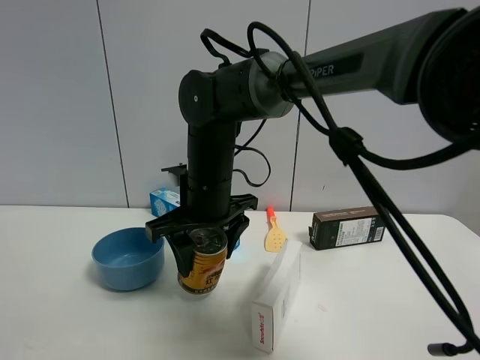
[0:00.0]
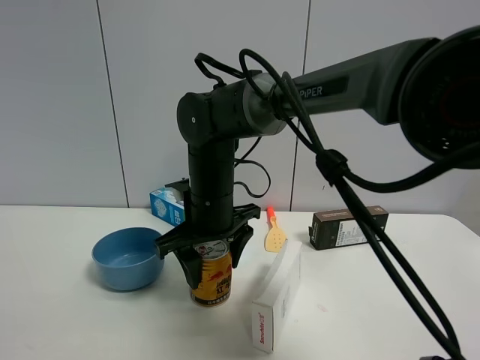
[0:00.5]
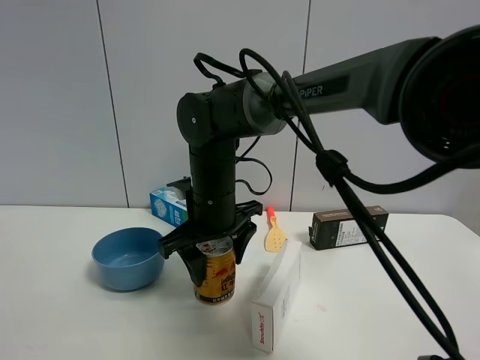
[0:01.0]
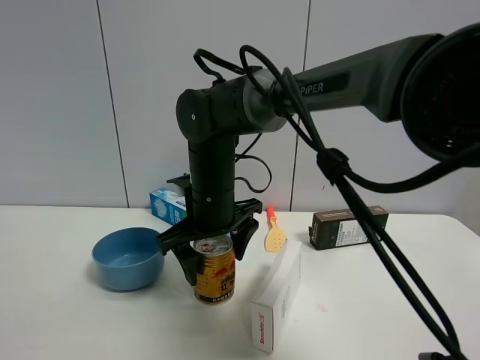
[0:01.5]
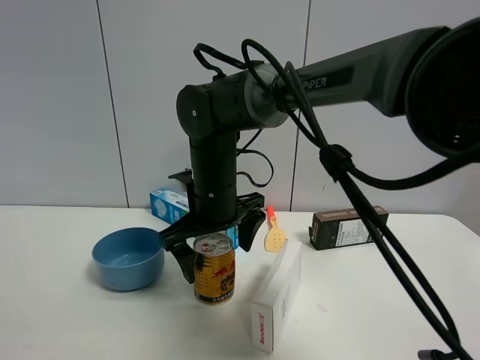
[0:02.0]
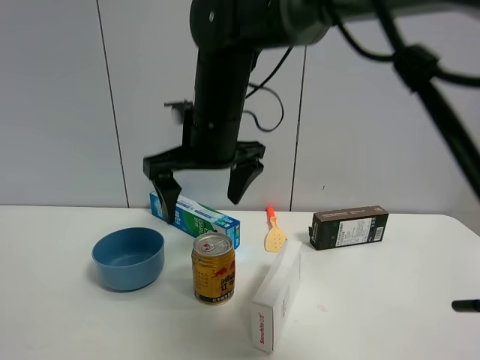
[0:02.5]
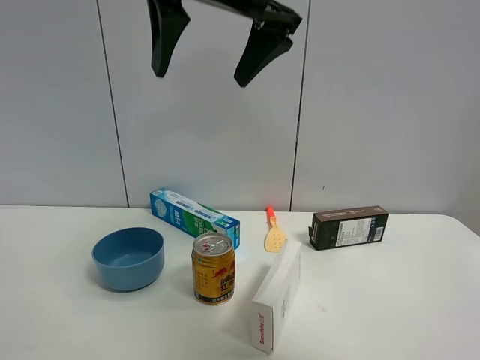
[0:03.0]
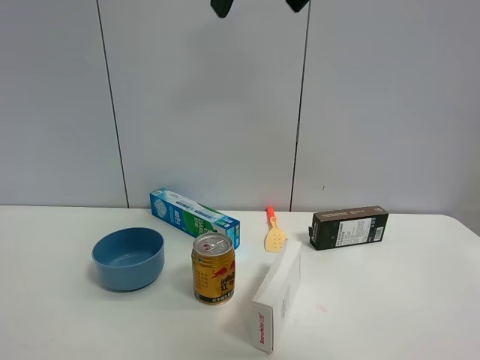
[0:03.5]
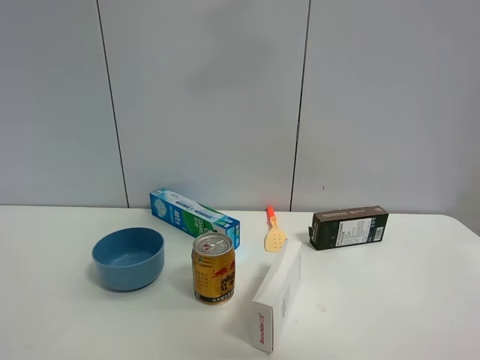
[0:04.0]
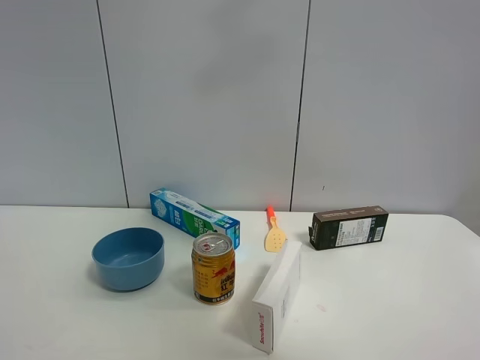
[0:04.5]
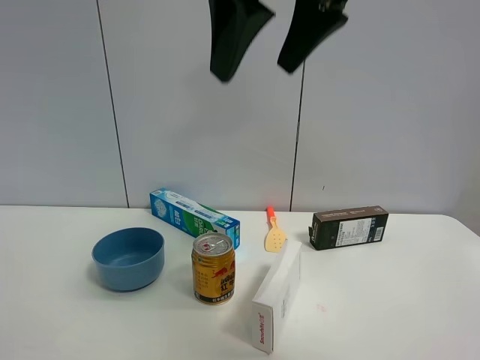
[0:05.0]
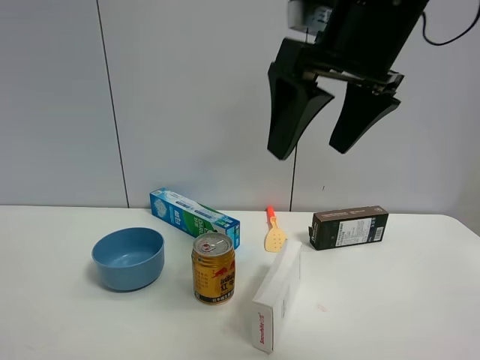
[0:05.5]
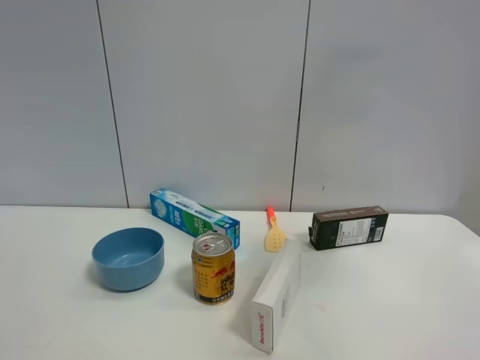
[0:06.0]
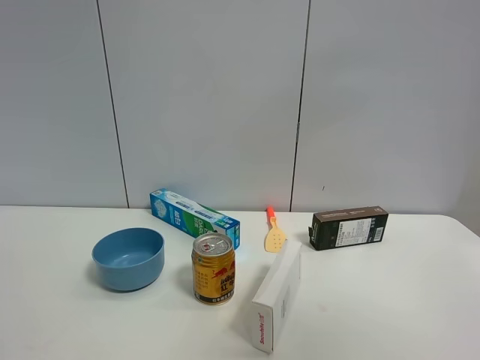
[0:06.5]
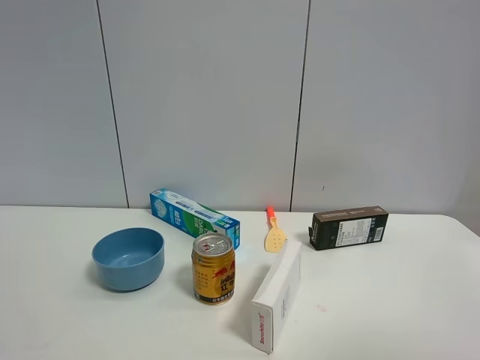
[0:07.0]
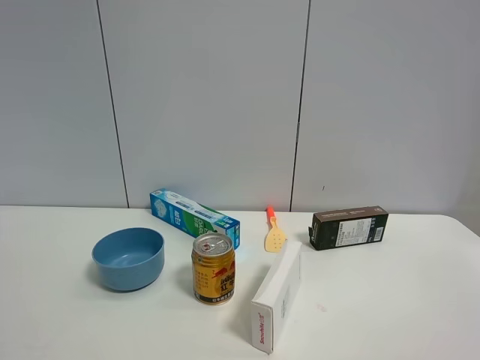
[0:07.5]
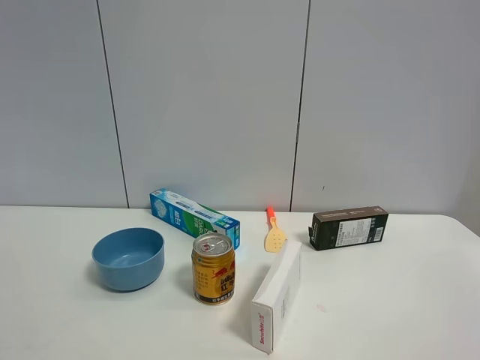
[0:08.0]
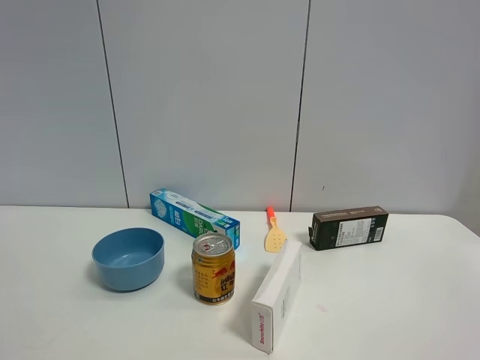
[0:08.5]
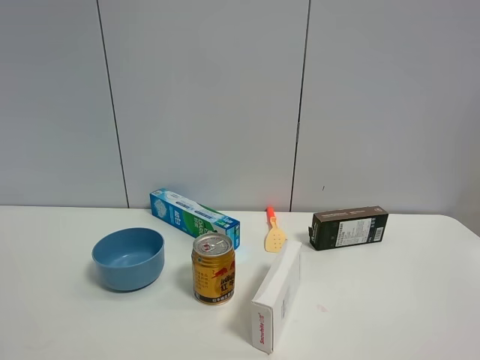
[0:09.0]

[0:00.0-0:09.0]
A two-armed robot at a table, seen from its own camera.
Task of the whole recording: the gripper move the object.
0:00.0 to 0:02.0: The right gripper opens its fingers.
0:02.0 to 0:04.5: The right gripper shifts about 35 cm upward.
0:04.5 to 0:07.0: The right gripper travels backward, to the right and downward by approximately 35 cm.

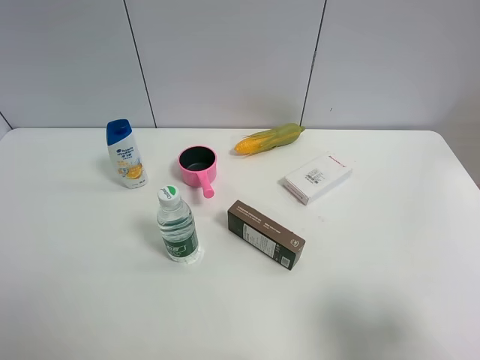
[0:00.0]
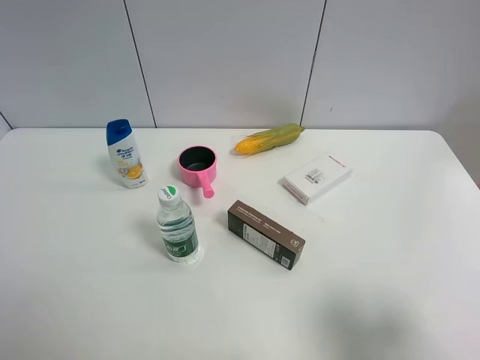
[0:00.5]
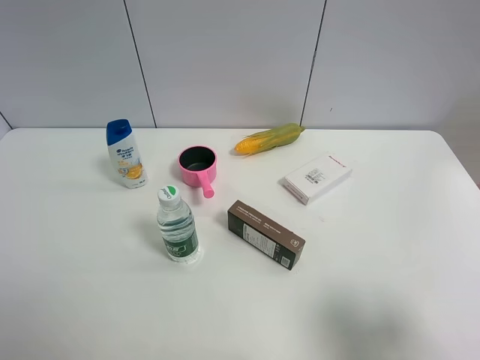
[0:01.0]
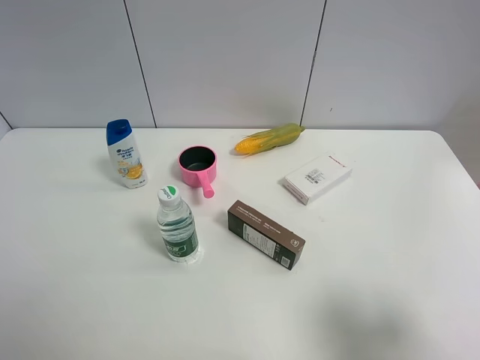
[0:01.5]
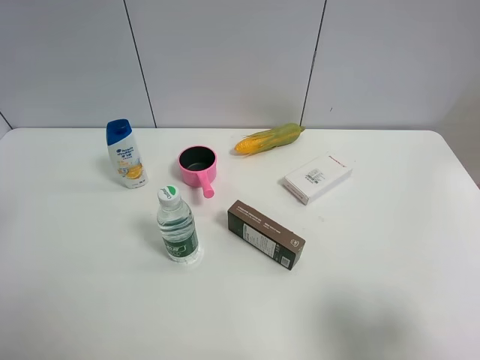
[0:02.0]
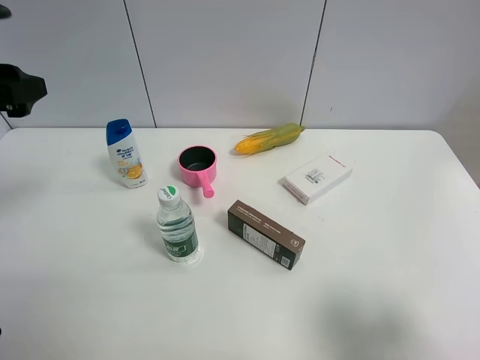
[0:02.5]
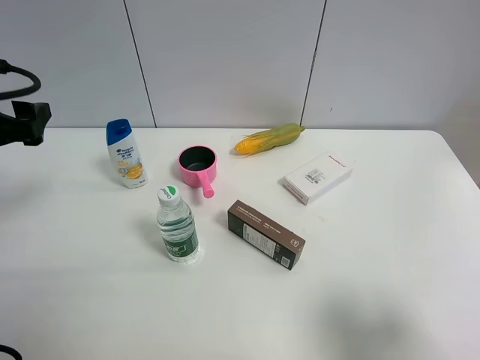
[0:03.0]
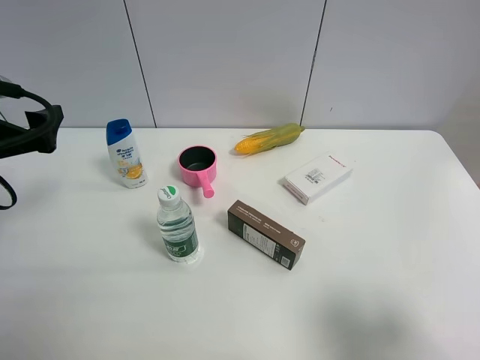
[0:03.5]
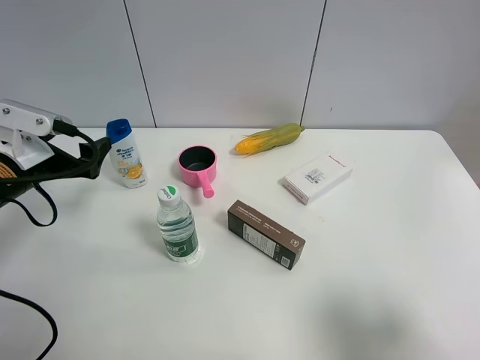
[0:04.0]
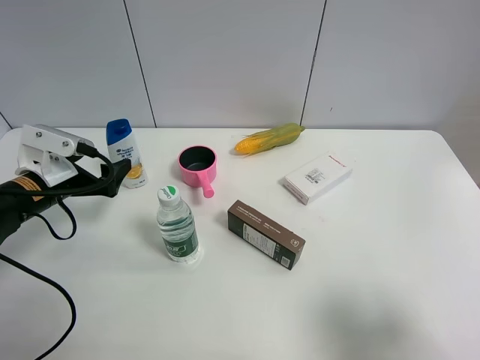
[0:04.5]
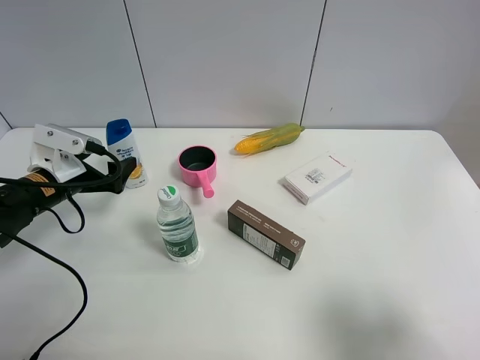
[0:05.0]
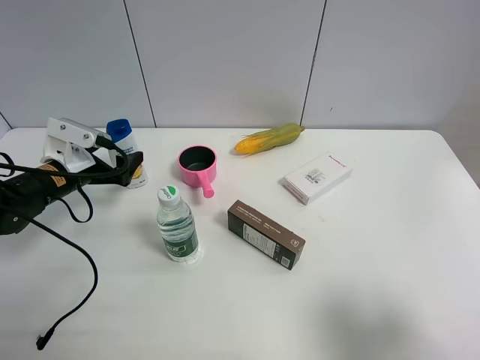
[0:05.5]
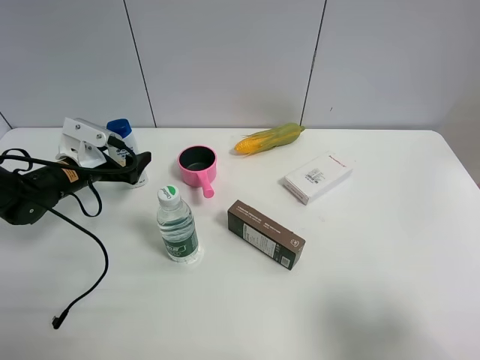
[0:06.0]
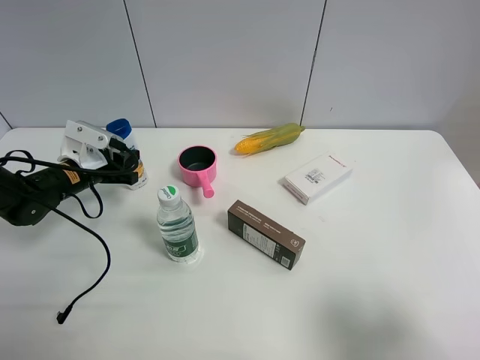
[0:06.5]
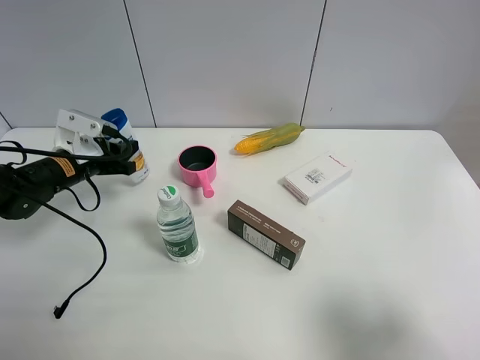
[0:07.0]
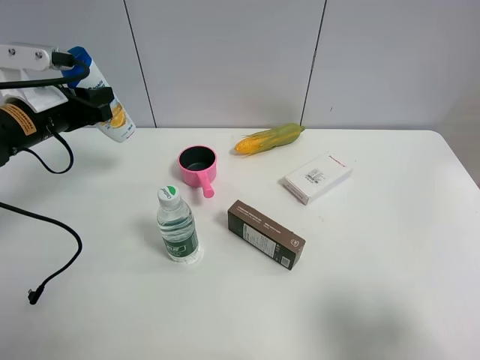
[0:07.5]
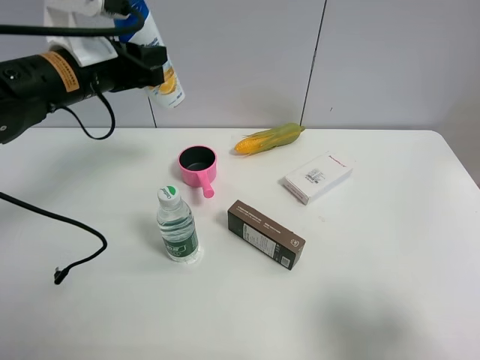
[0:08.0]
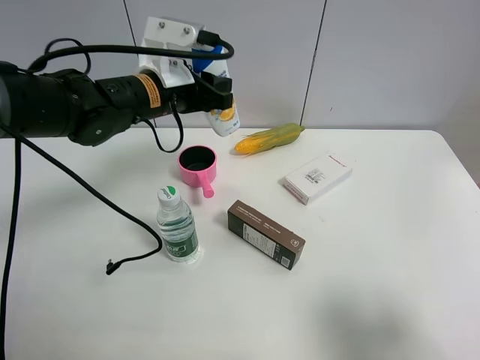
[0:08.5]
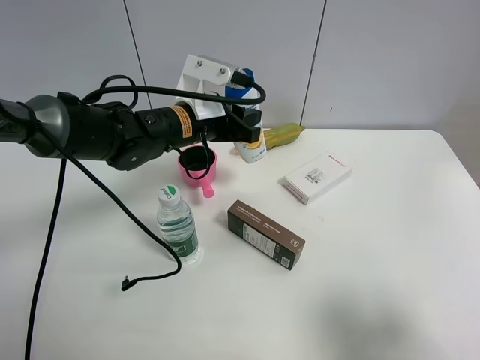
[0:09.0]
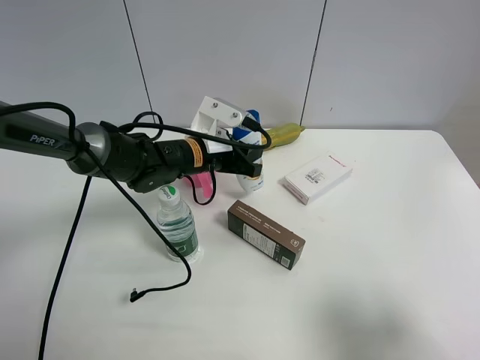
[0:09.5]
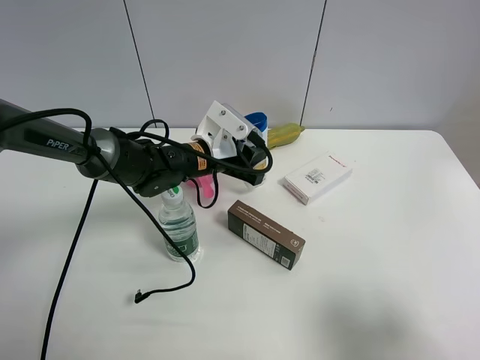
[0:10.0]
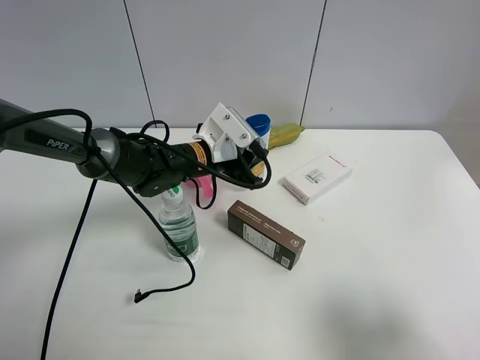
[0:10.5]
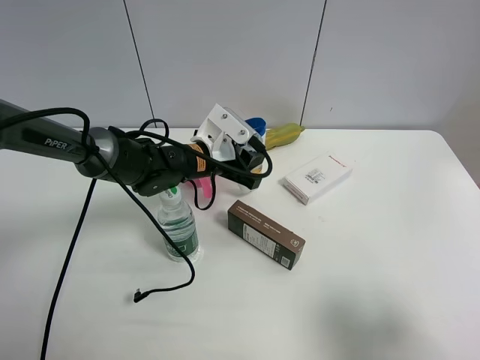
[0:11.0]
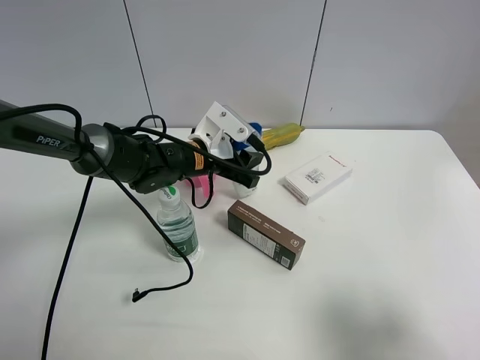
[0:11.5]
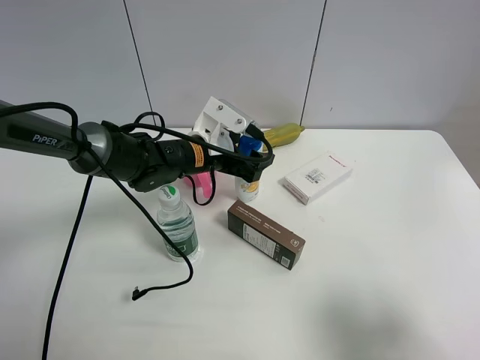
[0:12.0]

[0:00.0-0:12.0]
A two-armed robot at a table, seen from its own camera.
Task of the whole recording: the gripper move the object.
Step, 0:00.0 to 0:06.5: Grasp the shampoo with the left gripper.
Step, 0:07.0 to 0:12.0: Place the shampoo on the table with the left gripper.
0:02.0 to 0:04.0: The left gripper shifts about 25 cm downward and forward.
0:04.0 to 0:06.0: The left gripper is displaced forward and downward by some 10 cm.
0:06.0 to 0:08.0: The left gripper heads upward and to the right, covering approximately 20 cm, and closes its fingers.
0:08.0 to 0:10.0: The left gripper goes some 20 cm downward and to the right.
0:10.0 to 0:12.0: The left gripper opens up.

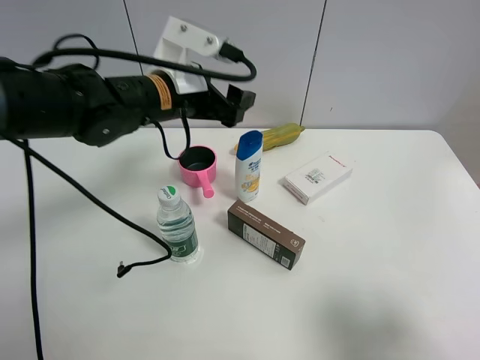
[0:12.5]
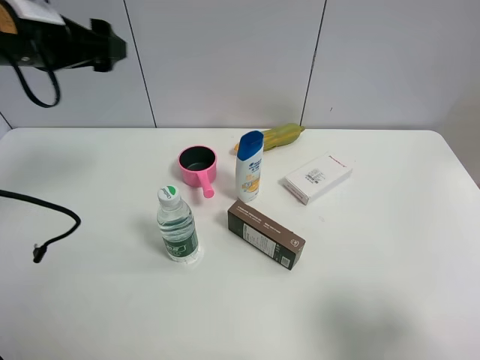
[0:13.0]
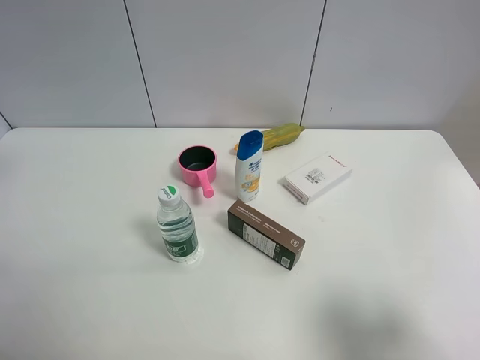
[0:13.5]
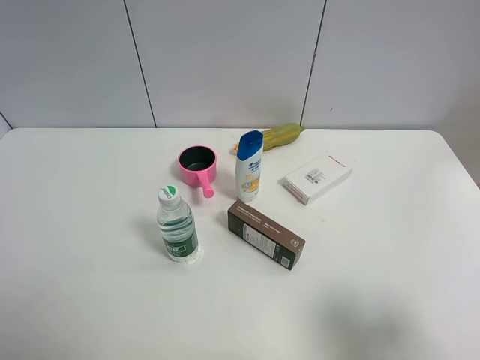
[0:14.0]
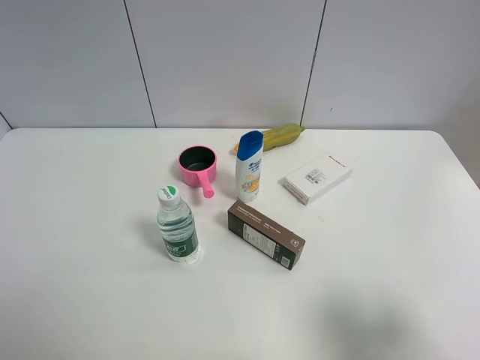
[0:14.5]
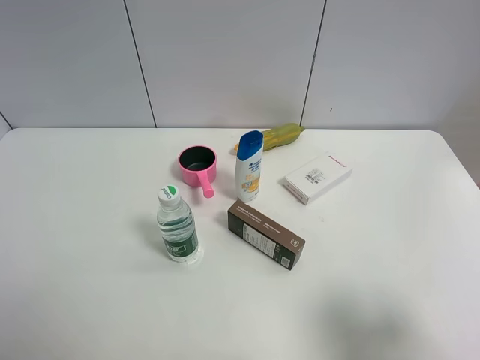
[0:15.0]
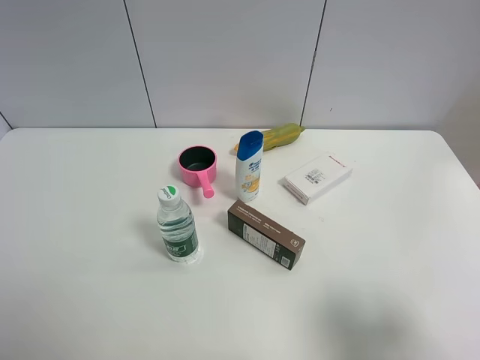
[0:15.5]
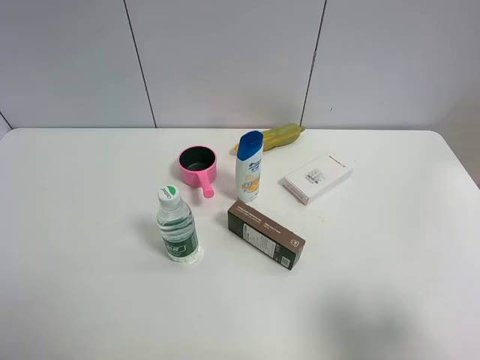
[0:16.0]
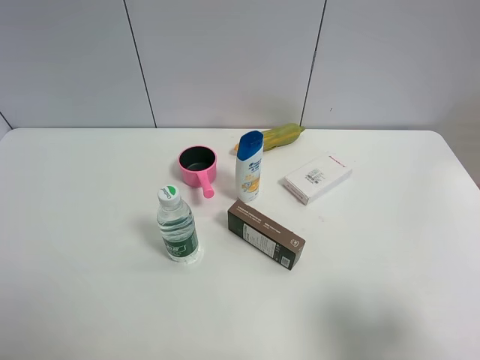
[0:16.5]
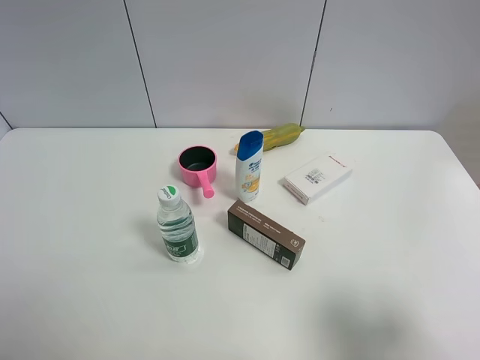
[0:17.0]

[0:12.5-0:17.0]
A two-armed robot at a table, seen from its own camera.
Task of the whole recording: the gripper move the object.
0:12.5 to 0:14.5: The left gripper shifts roughly 40 cm backward and to the left.
